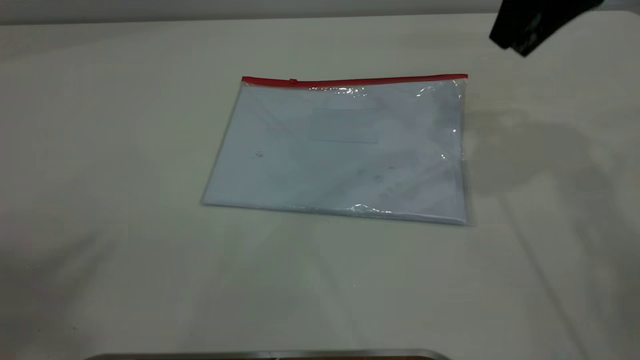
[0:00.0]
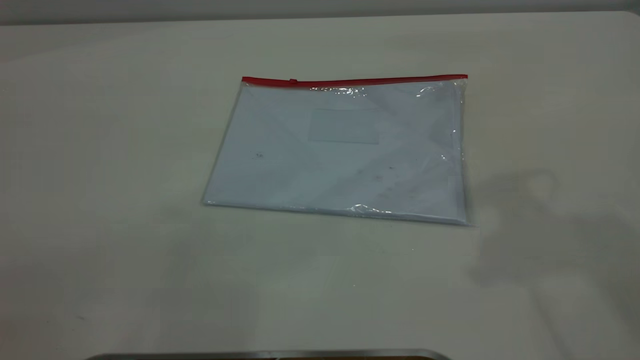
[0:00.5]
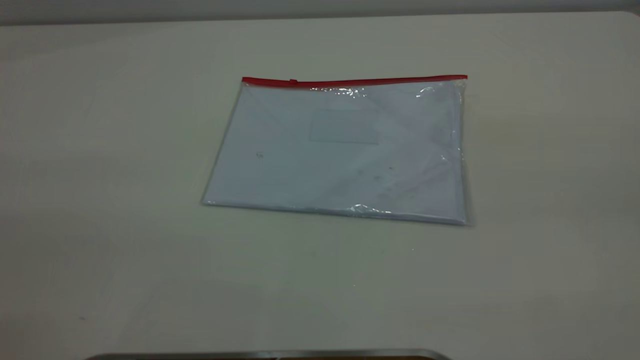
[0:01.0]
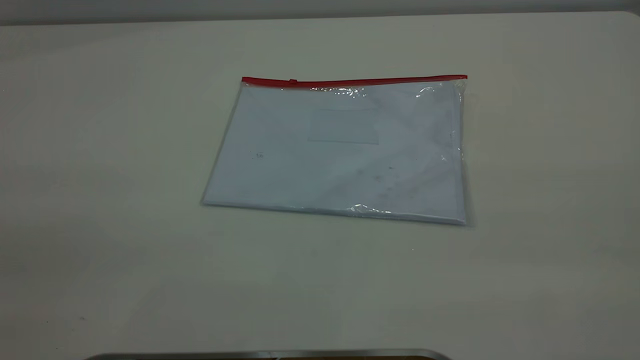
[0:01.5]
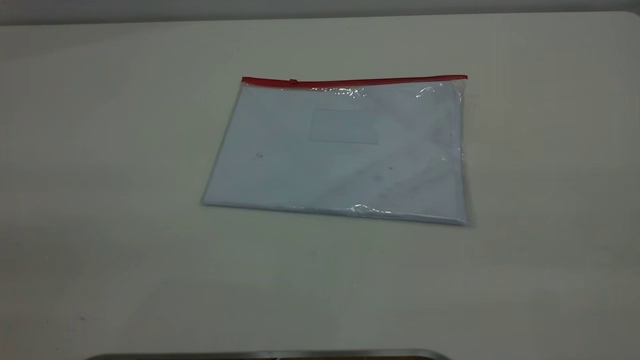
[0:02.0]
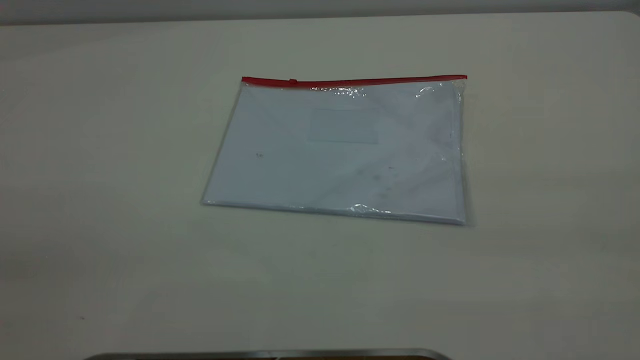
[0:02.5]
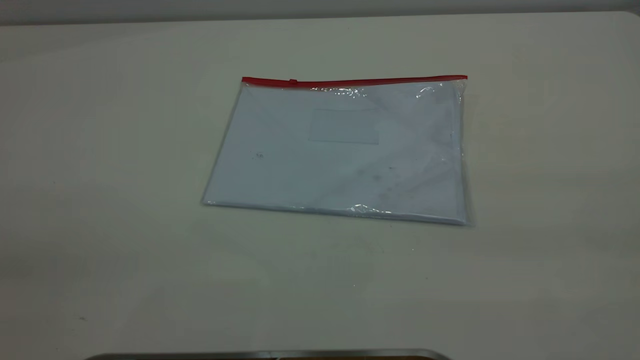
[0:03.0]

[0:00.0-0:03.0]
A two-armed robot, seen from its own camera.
0:00.0 to 0:01.5: The right gripper is displaced backward by about 40 cm.
